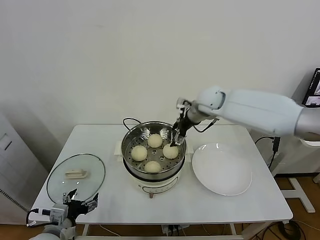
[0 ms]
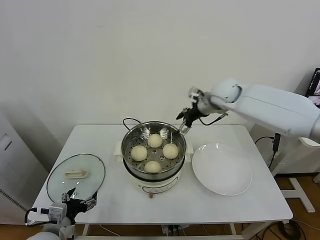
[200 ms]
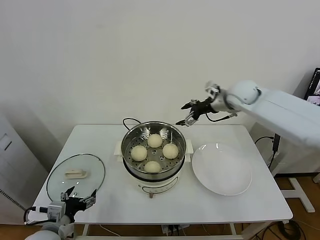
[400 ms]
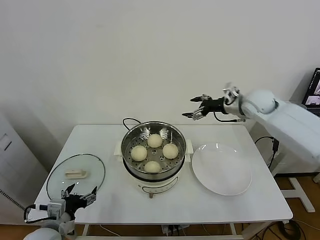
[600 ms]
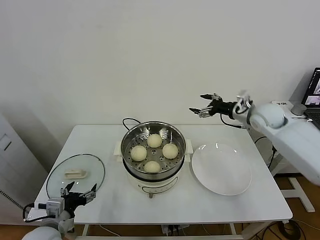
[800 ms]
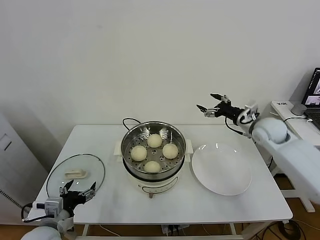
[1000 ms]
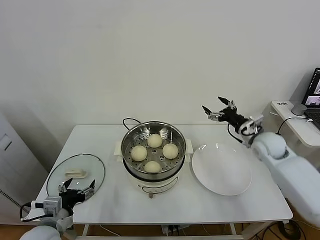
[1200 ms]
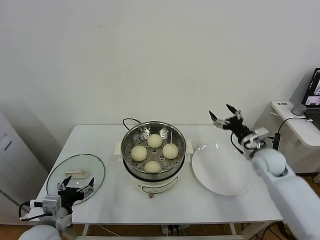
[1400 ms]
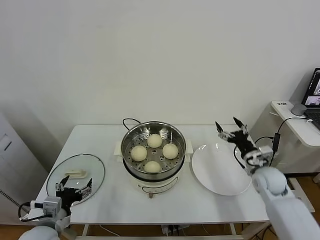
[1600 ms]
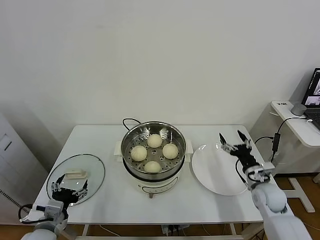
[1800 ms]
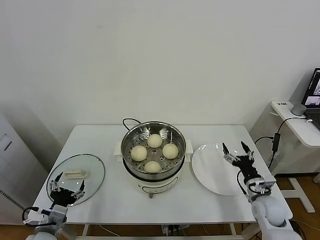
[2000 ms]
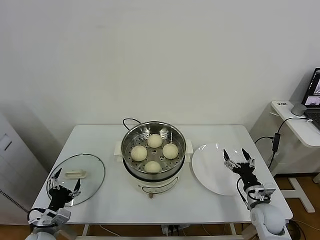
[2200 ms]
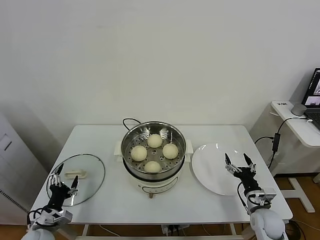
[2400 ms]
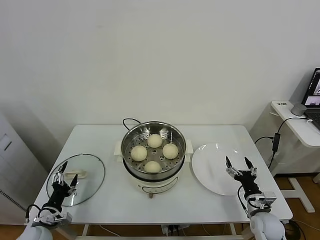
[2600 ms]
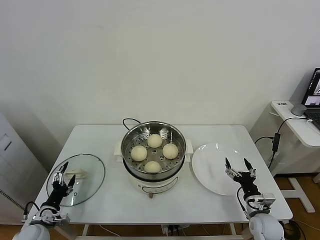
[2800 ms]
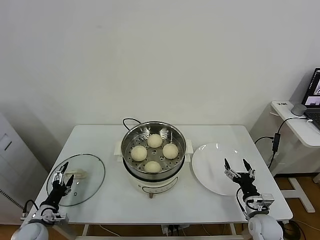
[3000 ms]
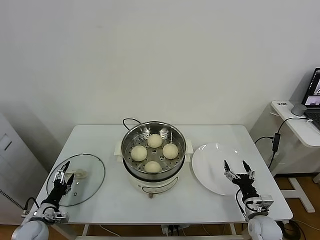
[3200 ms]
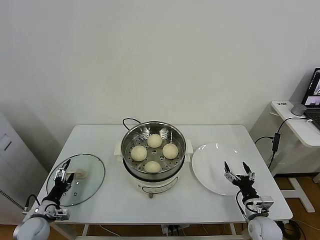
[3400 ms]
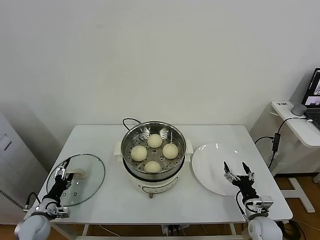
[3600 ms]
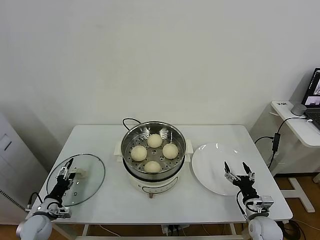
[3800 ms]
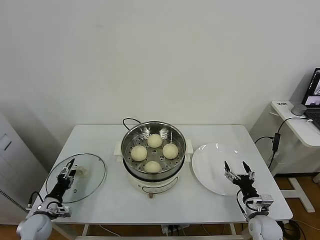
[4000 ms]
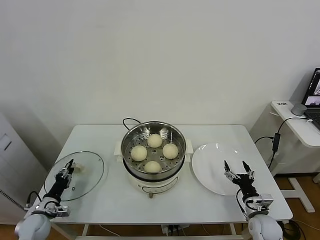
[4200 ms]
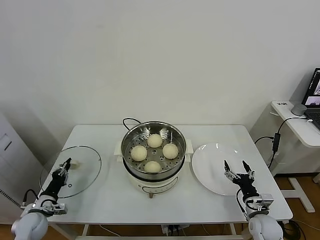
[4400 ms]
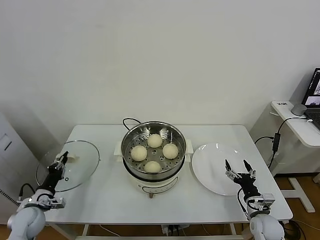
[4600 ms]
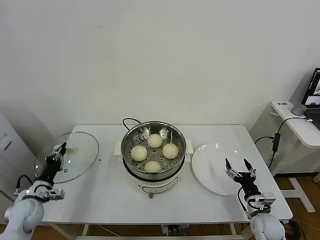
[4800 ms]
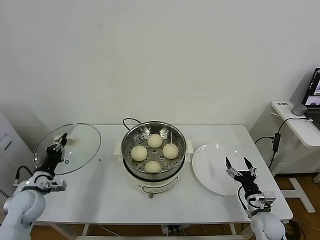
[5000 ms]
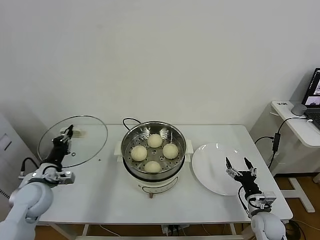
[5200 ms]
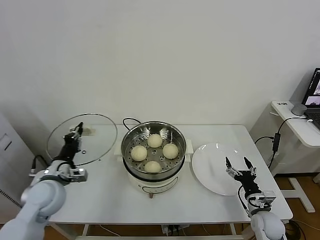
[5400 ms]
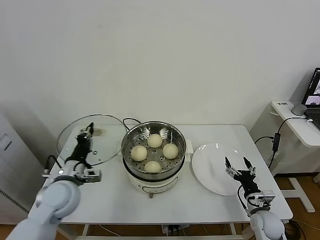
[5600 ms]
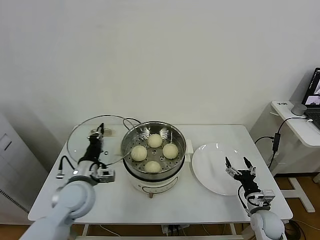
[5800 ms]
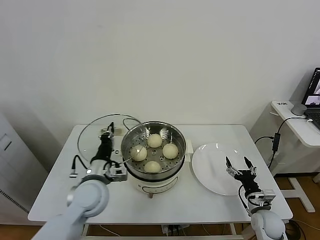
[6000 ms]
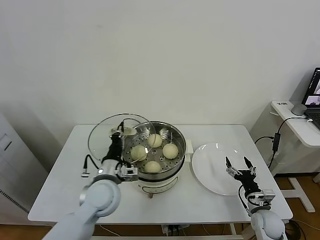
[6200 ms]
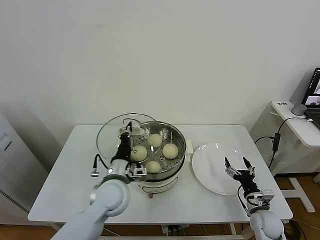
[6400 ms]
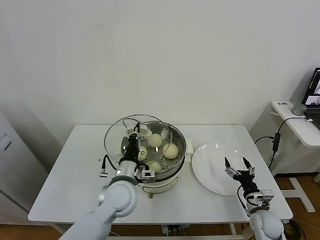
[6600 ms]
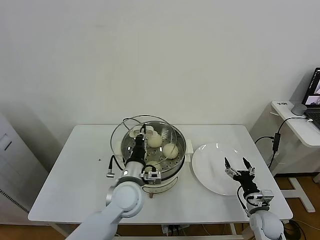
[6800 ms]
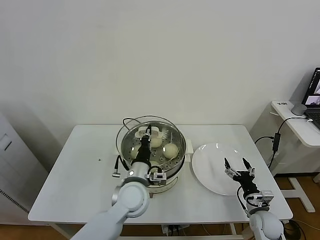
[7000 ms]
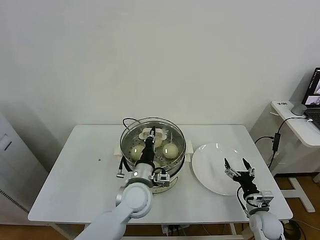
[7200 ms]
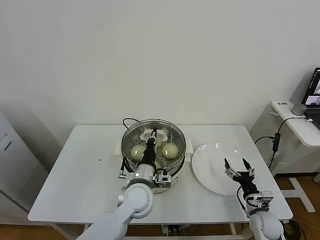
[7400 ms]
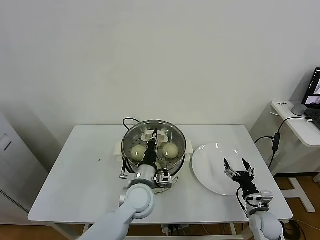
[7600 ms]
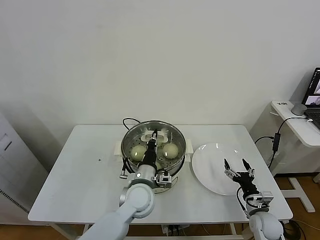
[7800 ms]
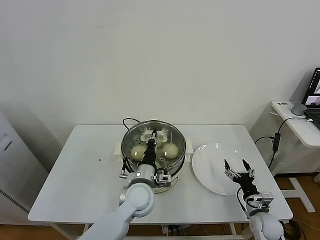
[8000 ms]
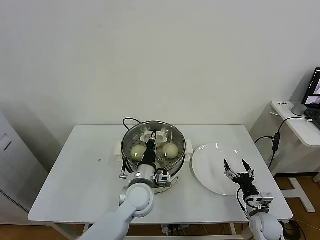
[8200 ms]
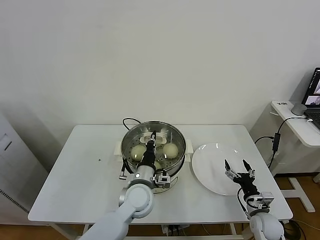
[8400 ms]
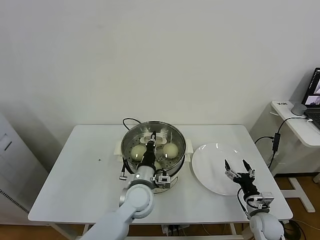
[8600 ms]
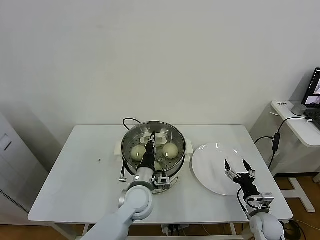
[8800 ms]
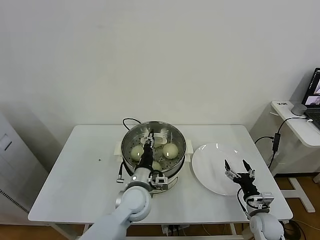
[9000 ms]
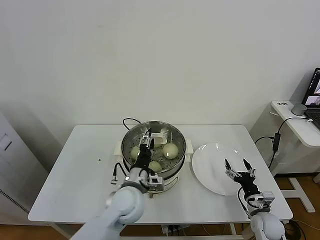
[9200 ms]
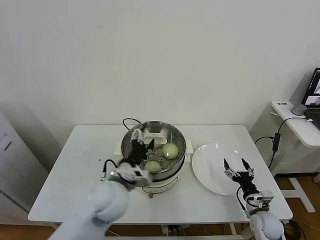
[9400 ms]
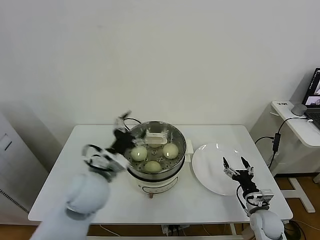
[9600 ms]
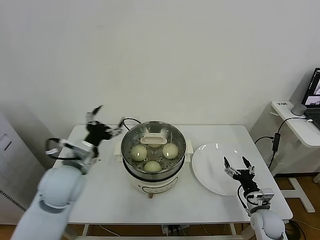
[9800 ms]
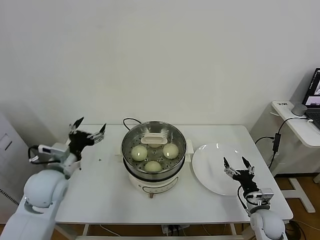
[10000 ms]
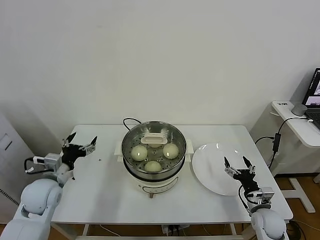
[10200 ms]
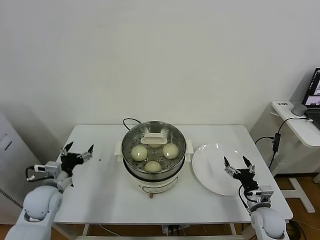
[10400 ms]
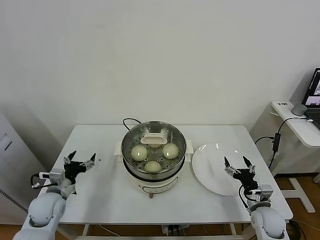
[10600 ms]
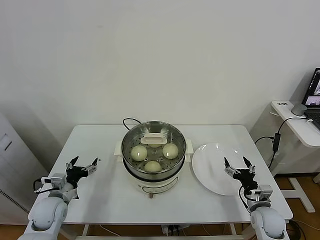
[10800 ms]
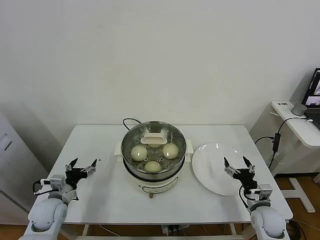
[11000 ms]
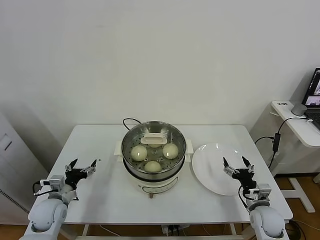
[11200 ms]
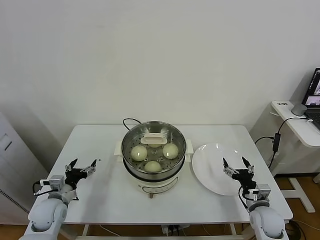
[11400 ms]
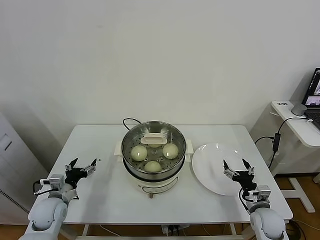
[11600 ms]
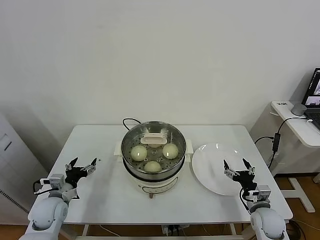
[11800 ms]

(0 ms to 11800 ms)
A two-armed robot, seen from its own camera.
Task of the whole recording: take steamed baozi put them in steamer.
Step, 200 ms - 4400 ms: Grasp the pot lid with left gripper.
Step, 4800 ms - 9400 ms: Place the pot lid on the steamer with left gripper.
0 ms - 1400 ms: The right gripper is displaced to the right, downward and backward by roughly 30 cm.
1400 ms - 3000 ms: The right gripper shifts some 25 cm downward and backward, while the left gripper shifts about 20 cm downward and to the left.
3000 ms - 4400 ms: The left gripper closes its fingers.
4400 ms - 6000 ms: The left gripper heads to the right and upward, covering roughly 30 cm.
6000 ms - 7400 ms: The left gripper shifts about 15 cm to the right.
7400 ms - 8800 ms: There are only small adjustments of the grippers.
8800 ms - 10400 ms: The left gripper moves to the left, roughly 30 cm, and opens up.
10400 ms - 11800 ms: The left gripper is displaced downward by roughly 5 cm.

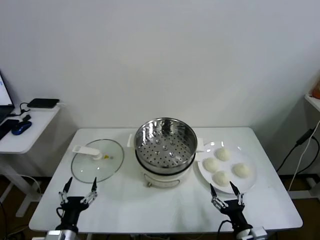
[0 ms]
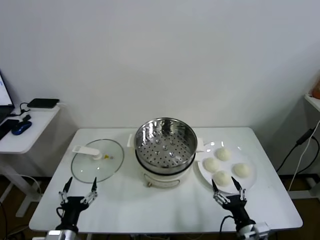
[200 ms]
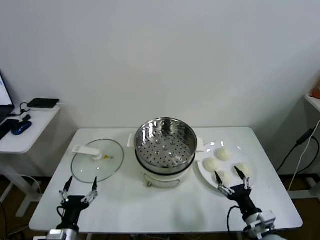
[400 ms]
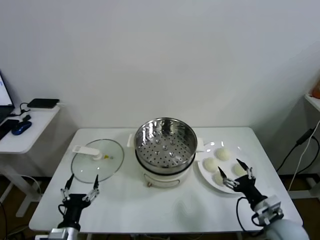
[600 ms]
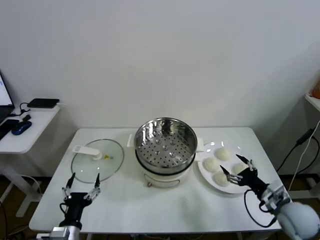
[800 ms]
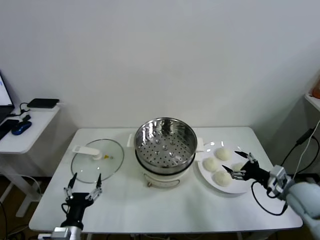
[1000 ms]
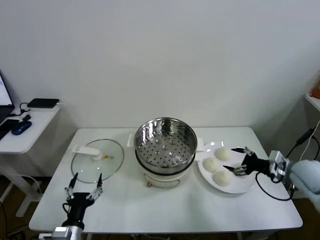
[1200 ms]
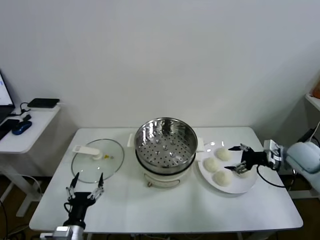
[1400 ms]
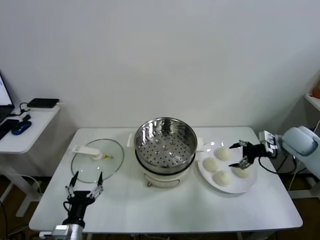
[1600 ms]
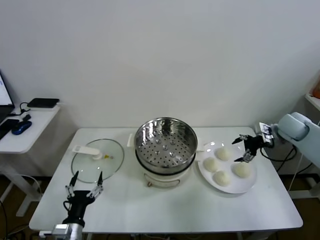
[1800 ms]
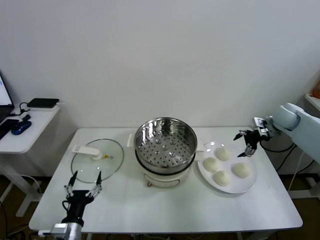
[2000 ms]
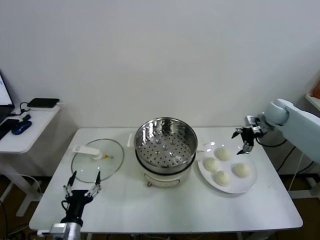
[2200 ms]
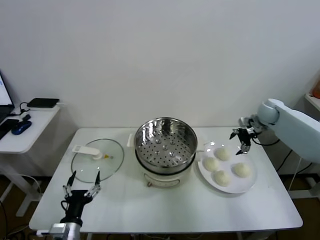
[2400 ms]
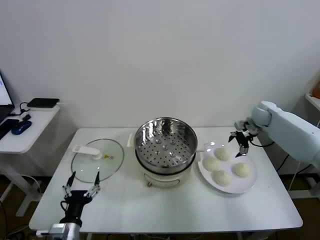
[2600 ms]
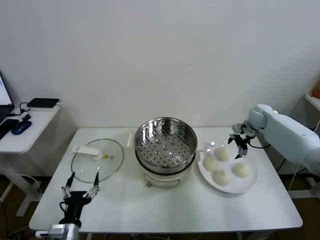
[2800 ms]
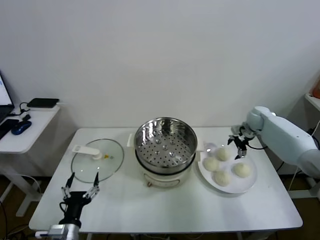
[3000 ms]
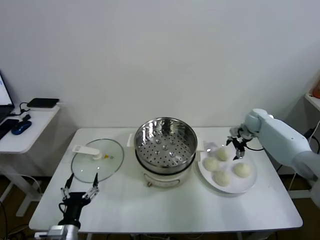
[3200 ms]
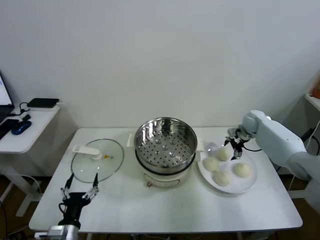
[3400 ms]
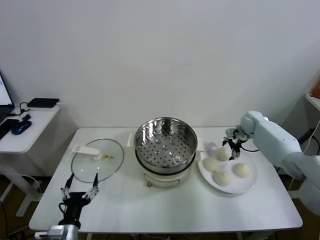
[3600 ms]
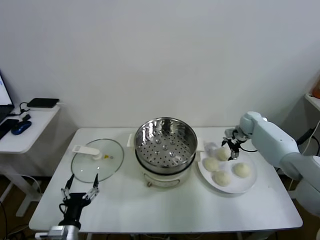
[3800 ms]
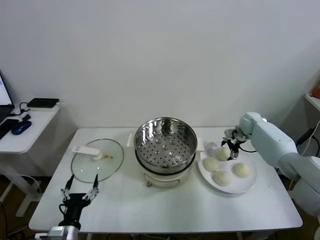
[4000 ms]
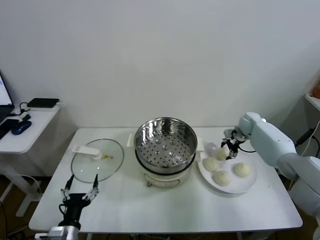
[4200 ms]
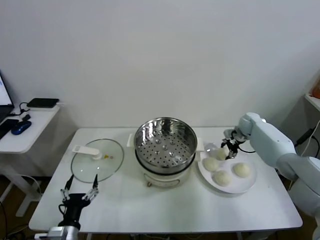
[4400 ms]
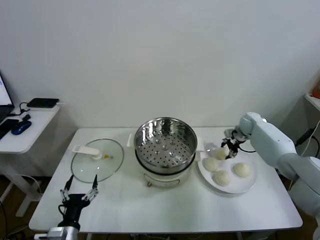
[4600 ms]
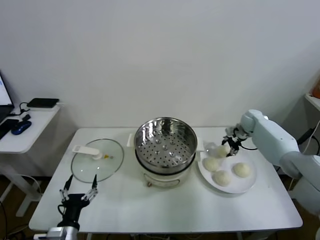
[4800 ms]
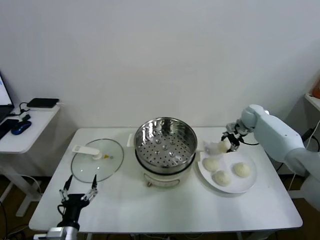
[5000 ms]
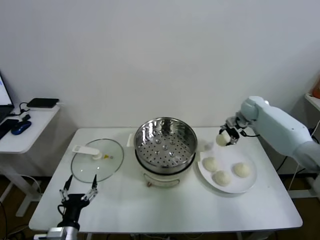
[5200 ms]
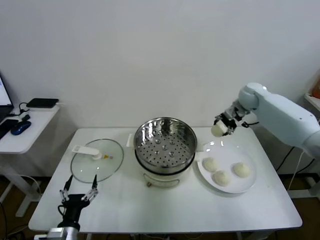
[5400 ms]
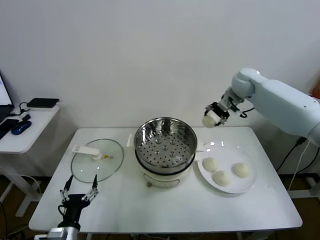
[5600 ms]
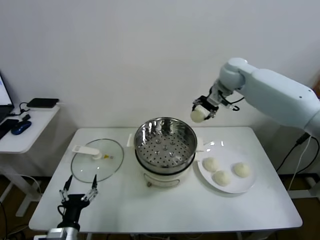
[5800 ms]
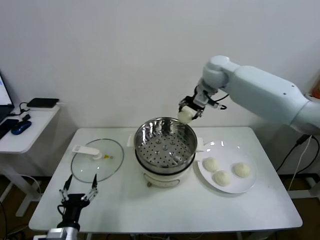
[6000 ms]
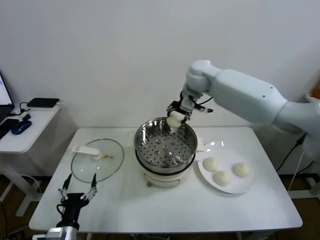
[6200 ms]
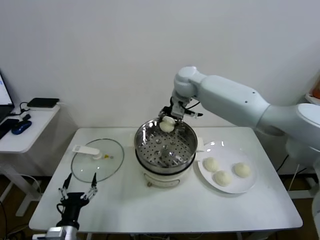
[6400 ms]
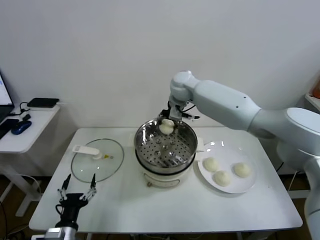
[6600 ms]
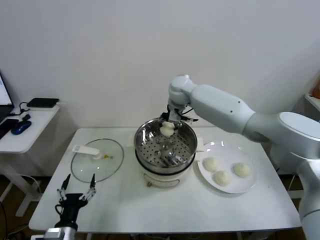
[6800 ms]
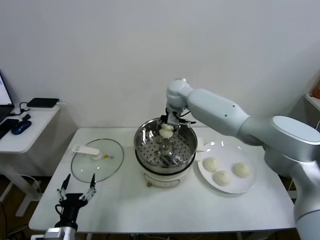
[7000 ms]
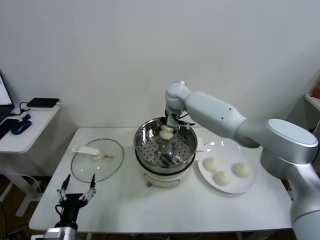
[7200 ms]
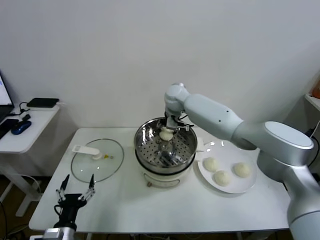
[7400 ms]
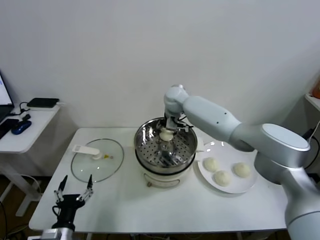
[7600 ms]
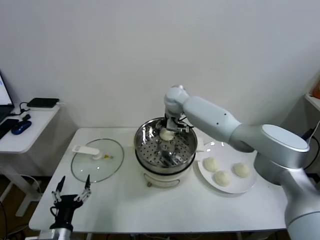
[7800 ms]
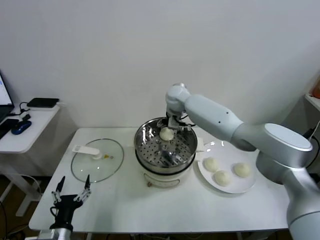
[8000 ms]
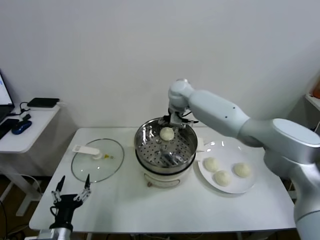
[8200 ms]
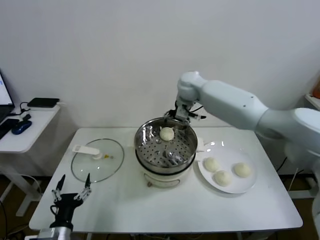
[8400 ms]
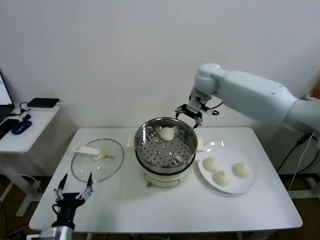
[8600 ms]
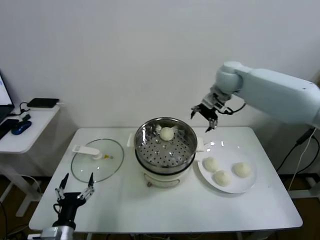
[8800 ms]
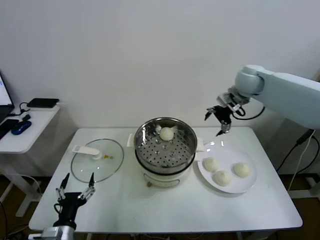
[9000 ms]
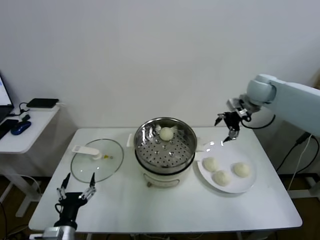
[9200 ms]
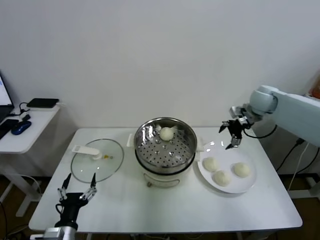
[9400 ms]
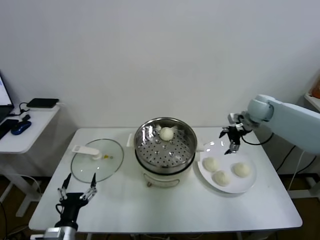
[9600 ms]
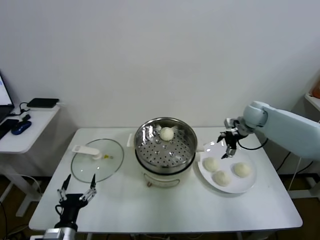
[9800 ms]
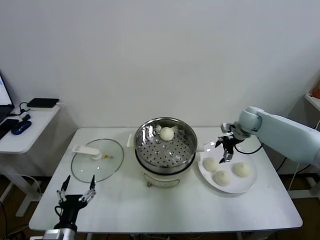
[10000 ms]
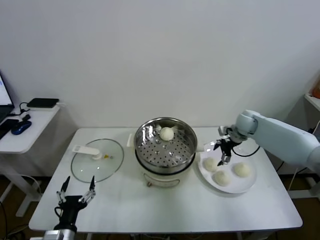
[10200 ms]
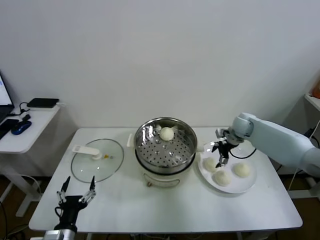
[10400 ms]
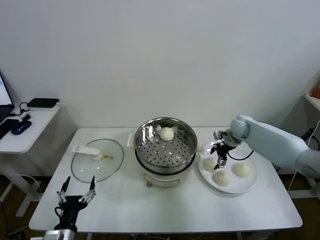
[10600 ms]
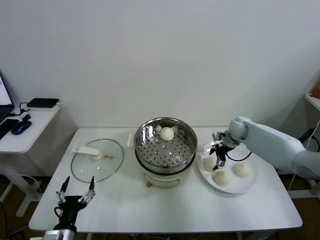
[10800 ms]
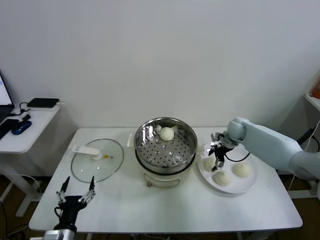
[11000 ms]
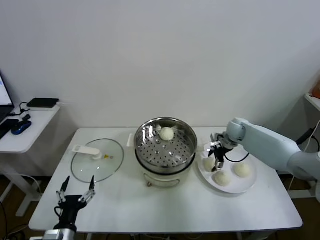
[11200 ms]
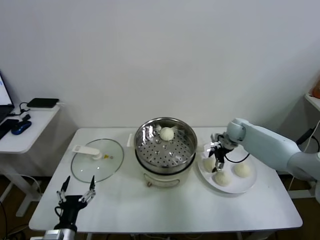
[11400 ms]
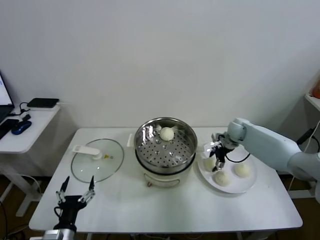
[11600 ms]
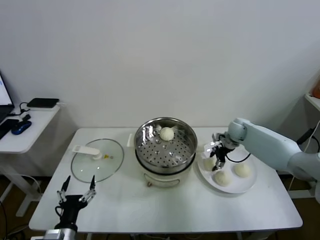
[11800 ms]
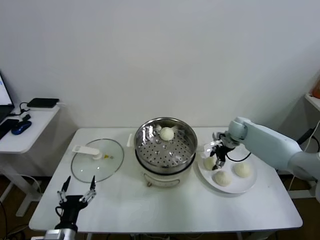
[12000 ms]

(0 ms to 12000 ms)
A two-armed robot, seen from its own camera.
Task of the whole recording: take steamed baozi put them in steamer.
Step, 0 ms - 4400 ms: Grasp the baozi in the plate with right gripper.
Step, 4600 ms - 7800 ms: Place the baozi on the steamer with right gripper.
Step, 8000 ms - 11800 ms: Grasp the baozi in the plate with right gripper.
1600 ms - 3000 ms: The right gripper goes approximately 15 cm forward, downward and to the left.
3000 ms - 4400 ms: The right gripper closes.
4400 ms - 6000 ms: The right gripper is displaced upward and to the left by about 35 cm.
6000 ms - 7600 ms: The right gripper moves downward and to the left, approximately 15 cm, and opens its fingers.
7600 ms - 9000 ms: The right gripper is displaced to the right by approximately 25 cm, and opens.
9000 ms - 10400 ms: The right gripper heads downward, covering some 20 cm.
10400 ms - 12000 ms: The right gripper closes its fingers.
